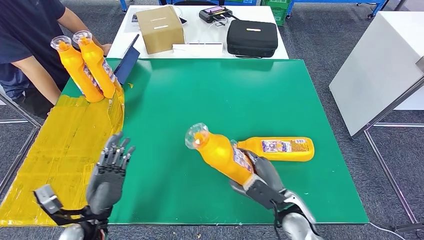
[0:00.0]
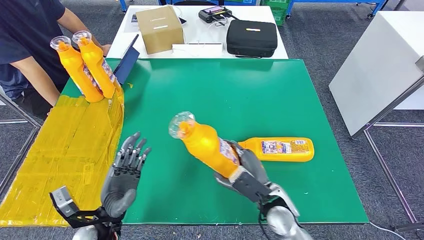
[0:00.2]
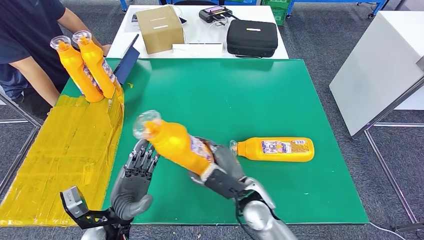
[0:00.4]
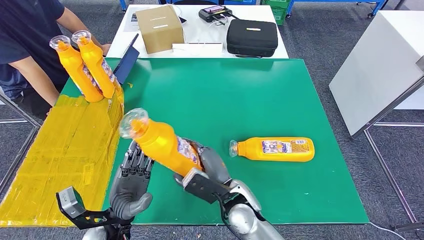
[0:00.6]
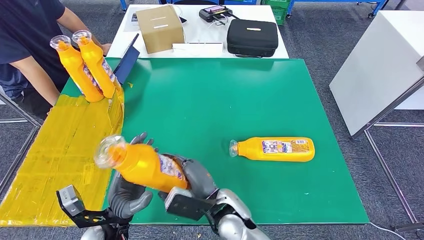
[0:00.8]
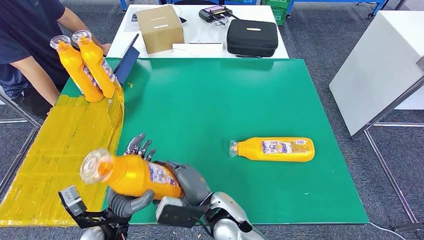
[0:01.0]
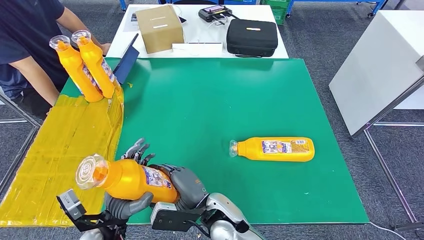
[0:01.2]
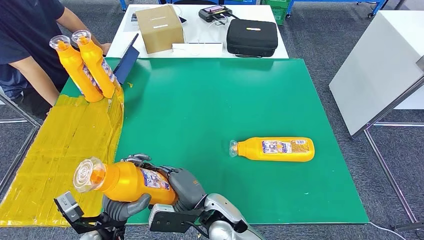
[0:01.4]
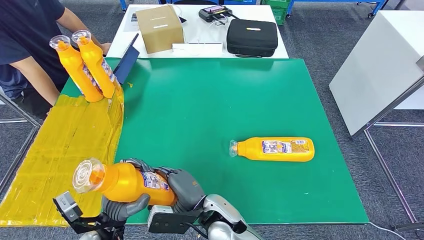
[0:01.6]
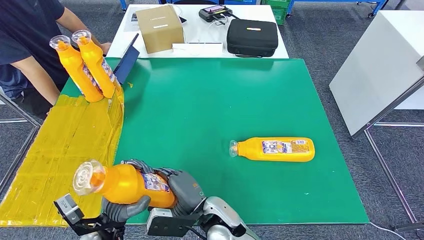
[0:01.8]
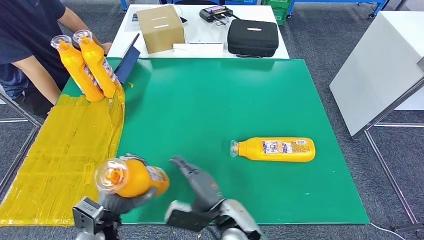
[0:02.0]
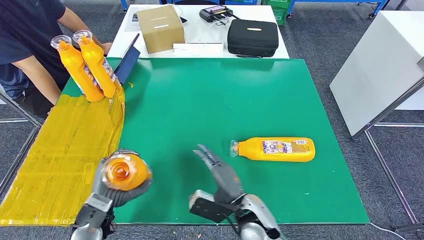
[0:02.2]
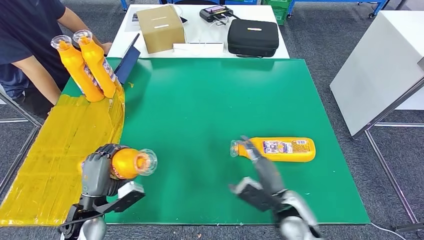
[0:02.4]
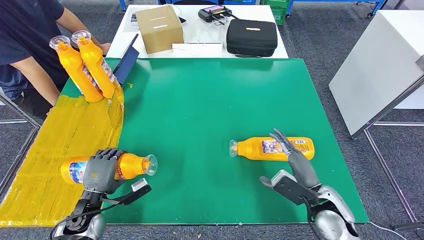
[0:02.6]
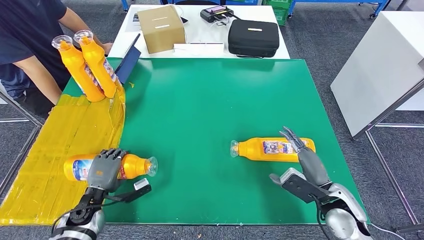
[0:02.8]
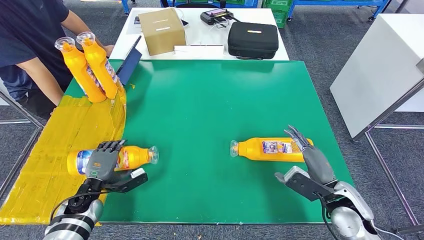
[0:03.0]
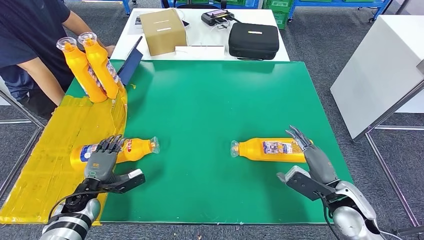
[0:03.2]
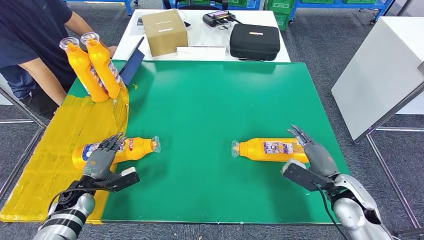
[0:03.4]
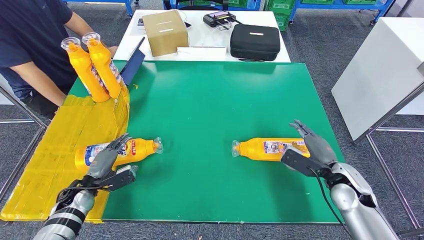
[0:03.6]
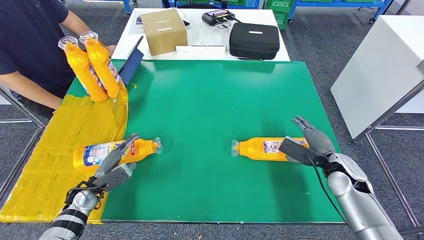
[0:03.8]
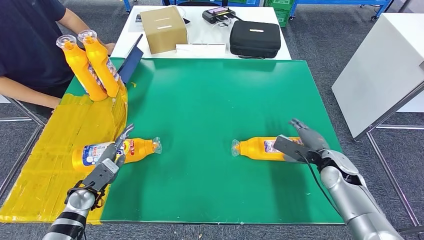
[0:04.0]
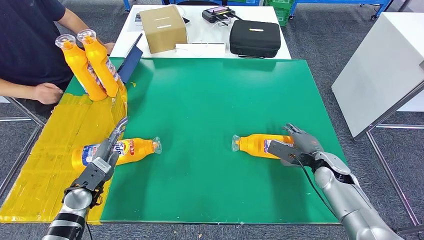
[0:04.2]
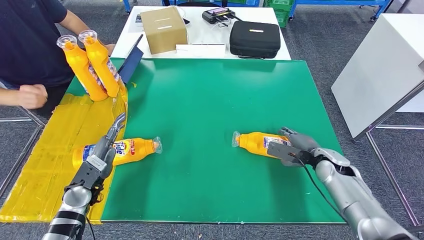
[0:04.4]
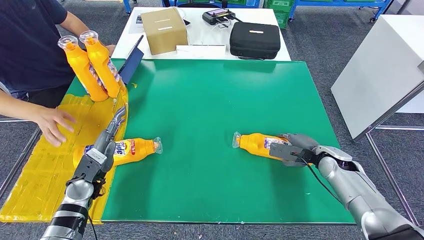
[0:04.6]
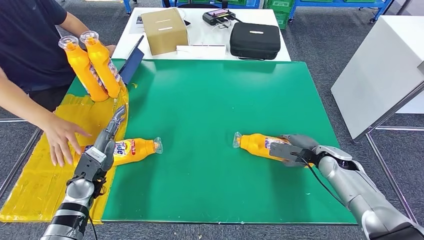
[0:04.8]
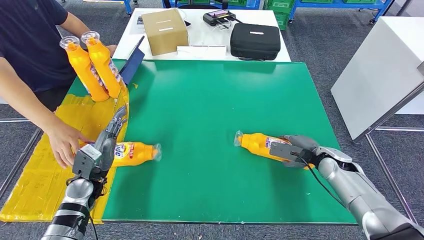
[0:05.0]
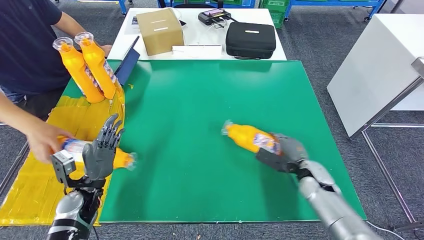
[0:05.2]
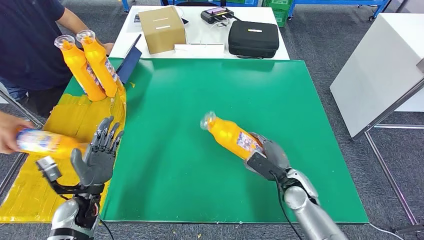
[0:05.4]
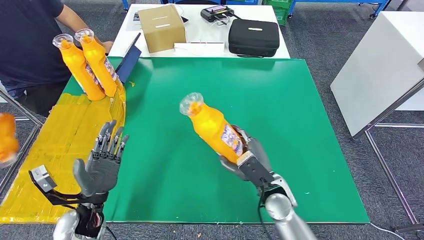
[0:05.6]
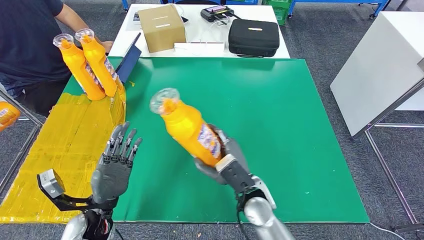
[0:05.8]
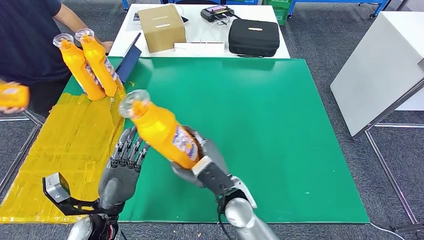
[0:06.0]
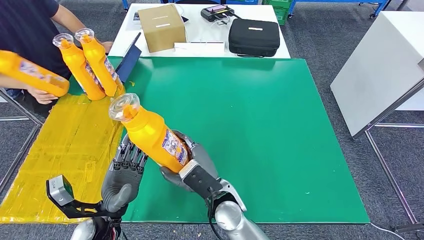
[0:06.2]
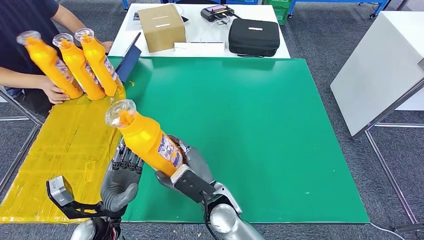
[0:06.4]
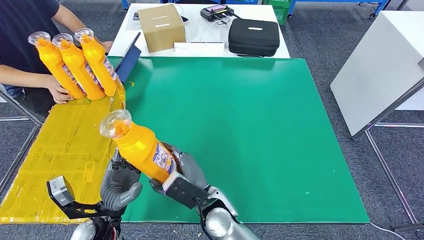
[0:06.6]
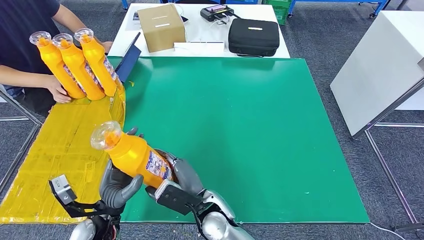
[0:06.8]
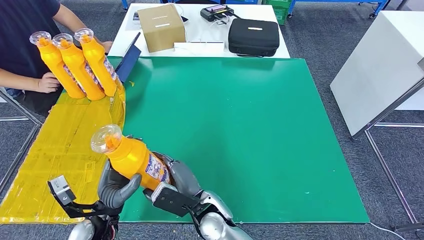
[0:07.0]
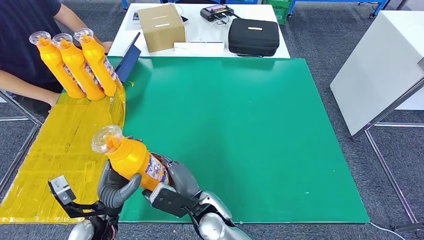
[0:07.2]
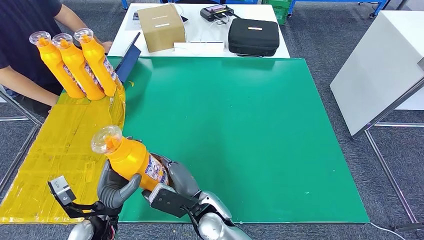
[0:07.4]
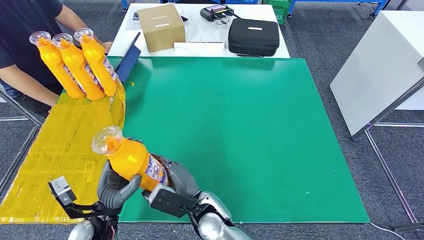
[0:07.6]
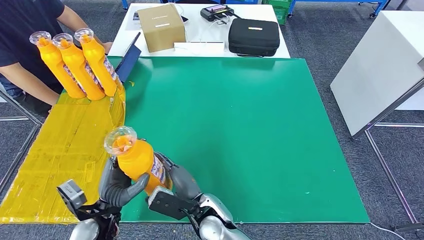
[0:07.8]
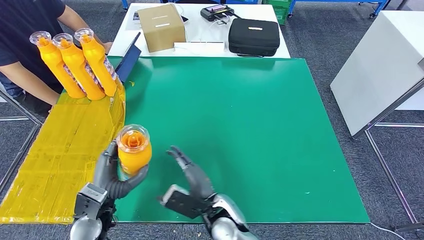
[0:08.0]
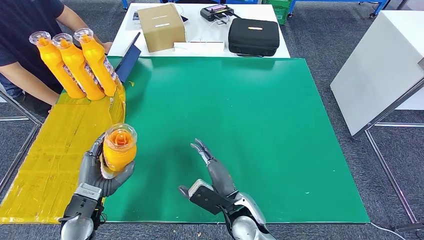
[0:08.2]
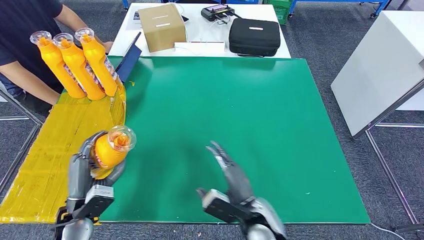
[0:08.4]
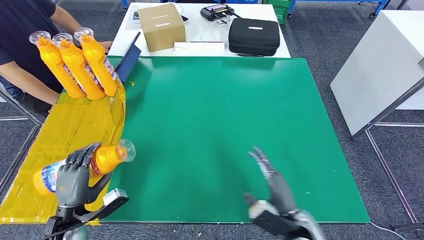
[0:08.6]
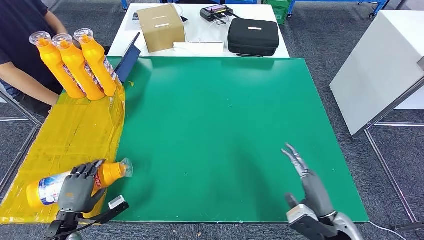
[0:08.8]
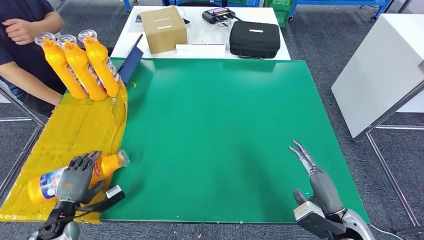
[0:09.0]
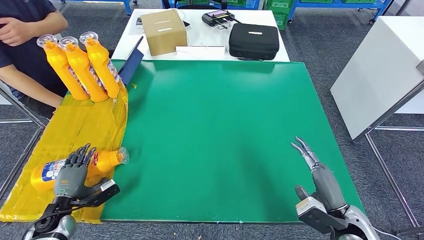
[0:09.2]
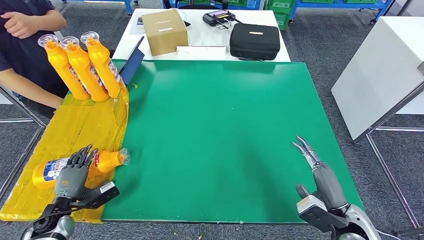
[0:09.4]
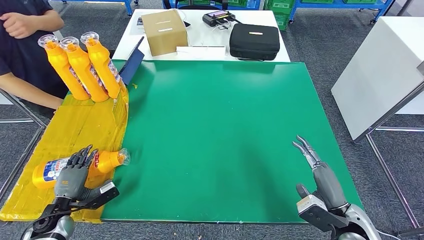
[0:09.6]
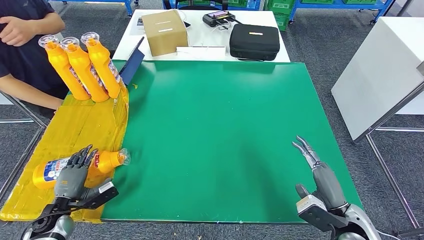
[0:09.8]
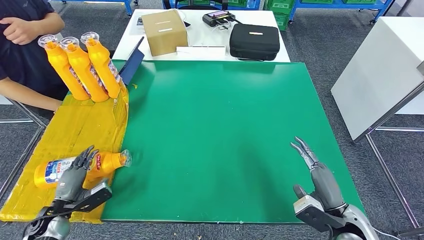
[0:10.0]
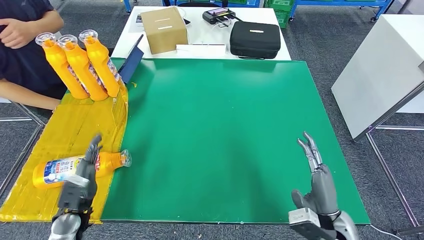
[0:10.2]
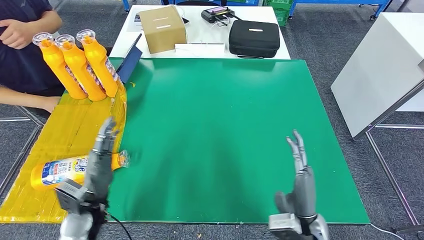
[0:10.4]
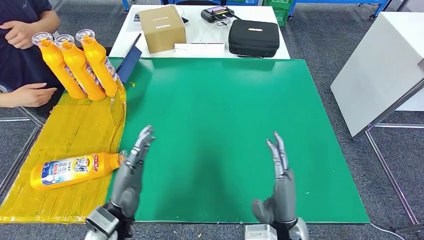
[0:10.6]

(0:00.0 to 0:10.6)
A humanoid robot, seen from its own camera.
Step, 0:01.4 - 0:05.2: Flip the fast-moving consumer goods bottle to the front side.
Step, 0:05.4 - 0:08.0: Pick up the fast-moving consumer goods bottle from the table.
Step, 0:08.2 - 0:10.6: Flip the fast-moving consumer goods bottle to the front side.
0:00.0 - 0:01.6: The right hand goes roughly 20 cm to the left.
0:06.0 - 0:07.6: The right hand heads to the left, covering approximately 5 cm.
